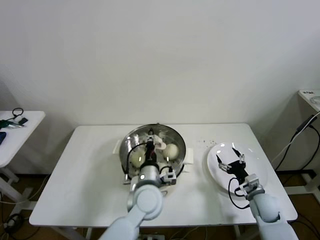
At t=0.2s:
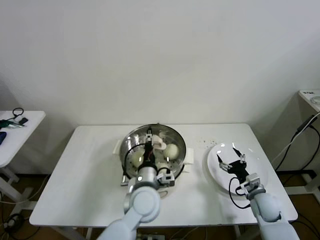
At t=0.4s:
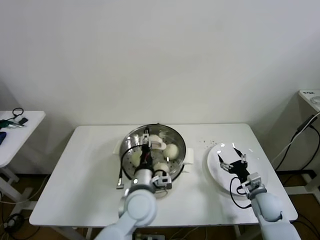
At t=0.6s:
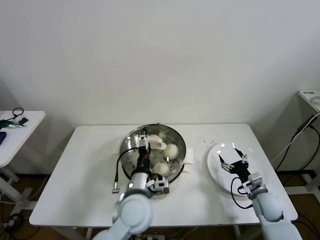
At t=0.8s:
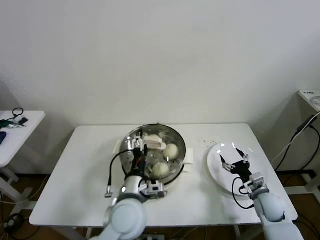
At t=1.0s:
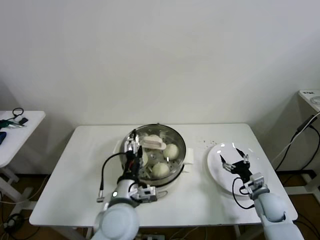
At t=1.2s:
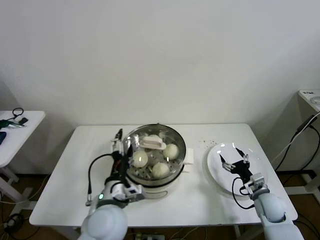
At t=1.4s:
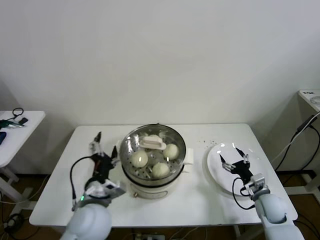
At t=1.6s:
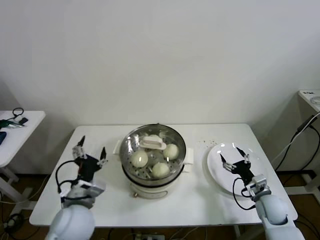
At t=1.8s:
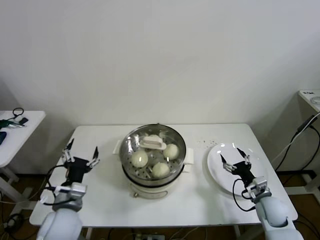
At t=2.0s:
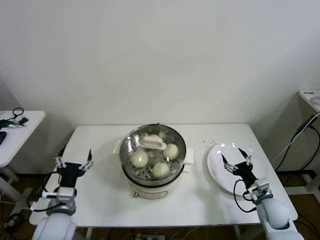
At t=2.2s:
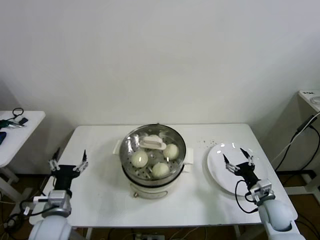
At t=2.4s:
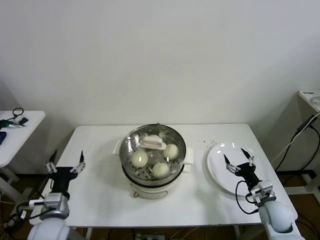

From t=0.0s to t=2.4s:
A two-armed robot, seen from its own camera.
From t=0.0s to t=1.2s: The left gripper moves to the left and backward, about 10 cm, and opens its fingers.
From t=1.2s to t=2.4s: The left gripper travels to the left by approximately 20 cm.
